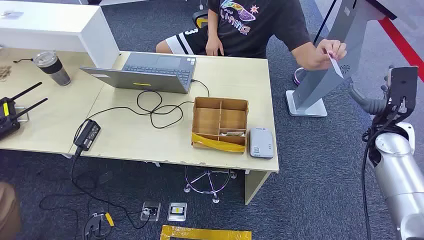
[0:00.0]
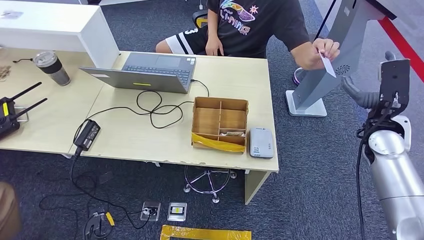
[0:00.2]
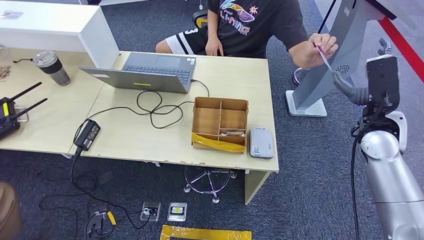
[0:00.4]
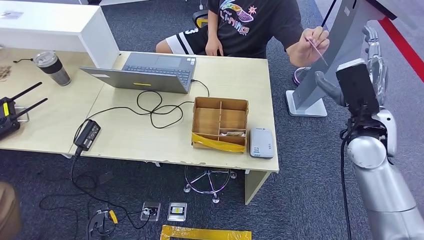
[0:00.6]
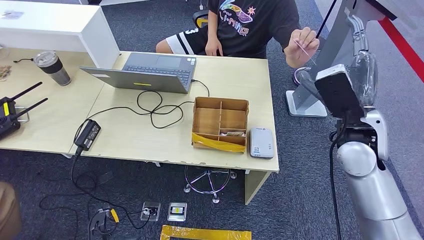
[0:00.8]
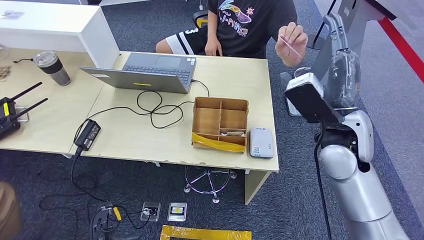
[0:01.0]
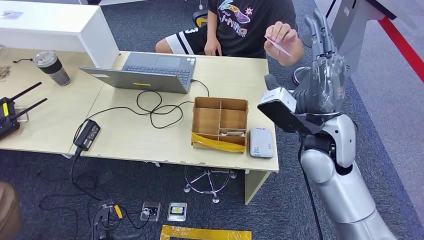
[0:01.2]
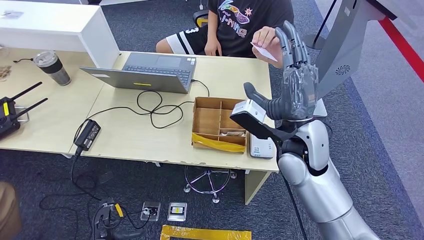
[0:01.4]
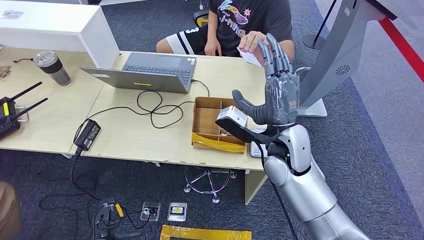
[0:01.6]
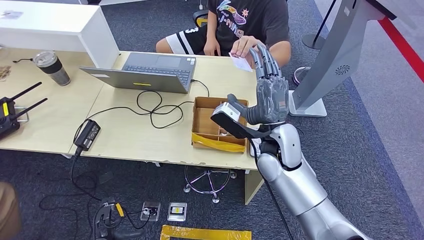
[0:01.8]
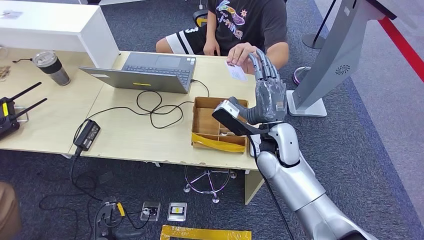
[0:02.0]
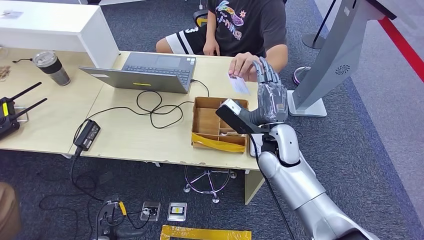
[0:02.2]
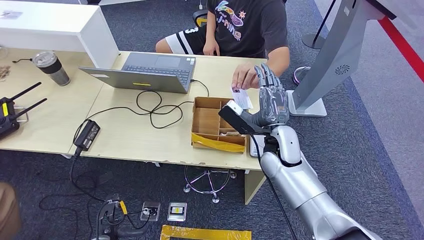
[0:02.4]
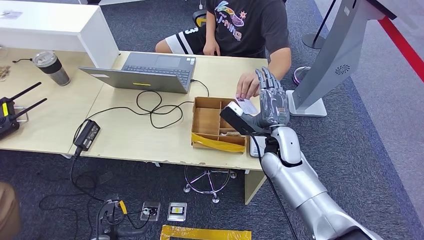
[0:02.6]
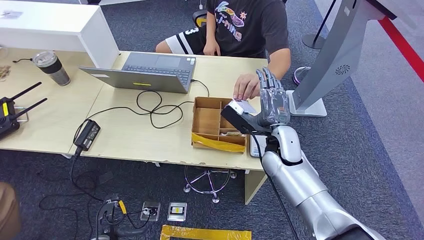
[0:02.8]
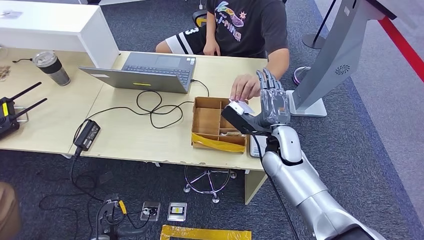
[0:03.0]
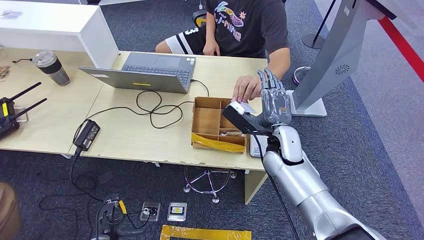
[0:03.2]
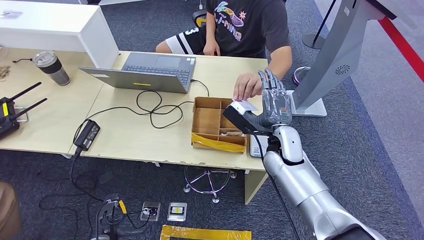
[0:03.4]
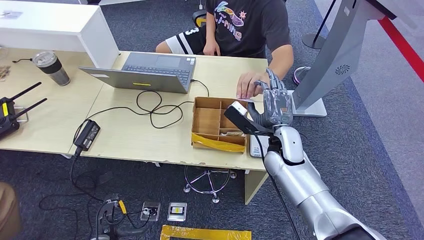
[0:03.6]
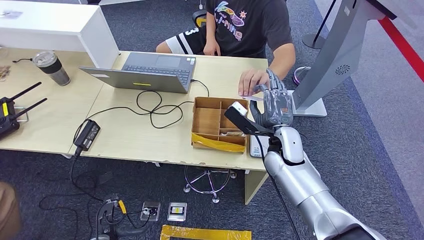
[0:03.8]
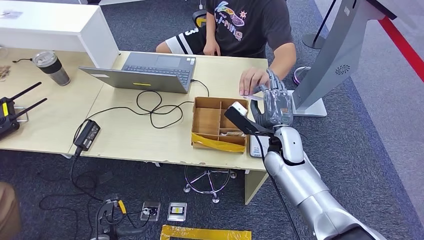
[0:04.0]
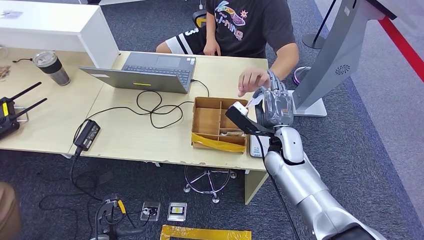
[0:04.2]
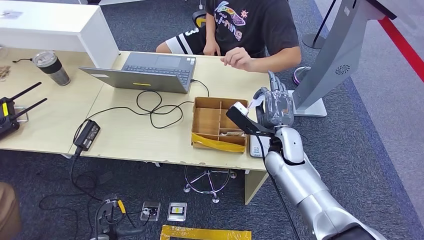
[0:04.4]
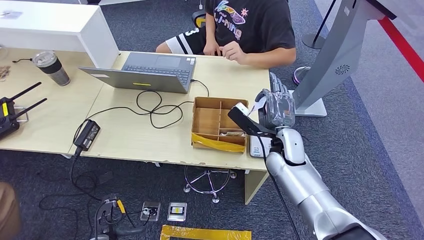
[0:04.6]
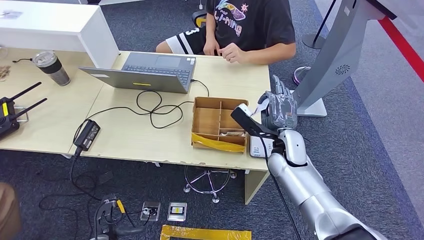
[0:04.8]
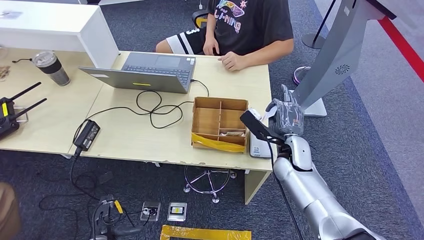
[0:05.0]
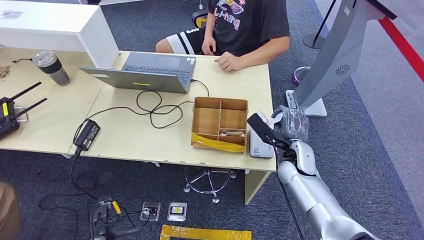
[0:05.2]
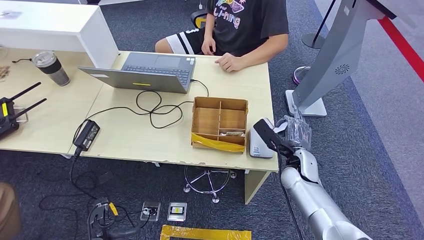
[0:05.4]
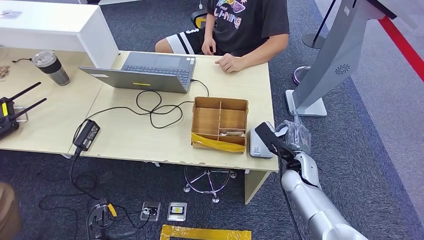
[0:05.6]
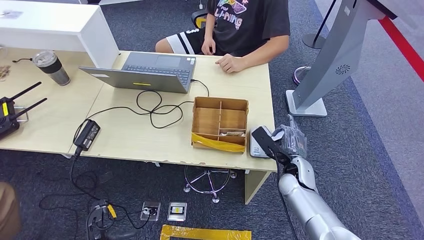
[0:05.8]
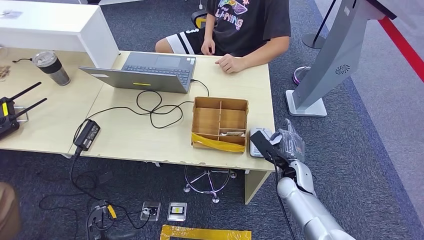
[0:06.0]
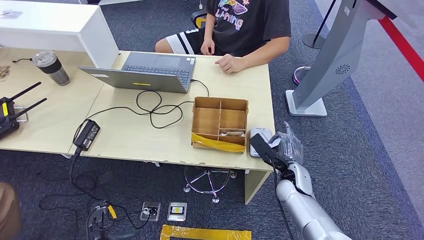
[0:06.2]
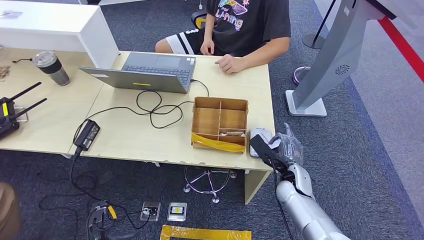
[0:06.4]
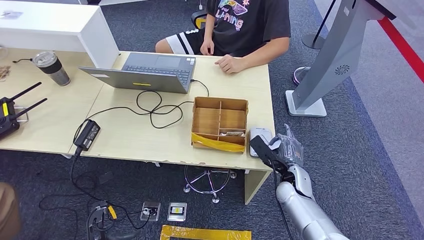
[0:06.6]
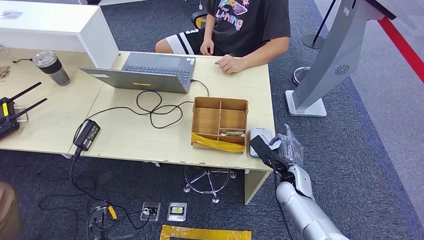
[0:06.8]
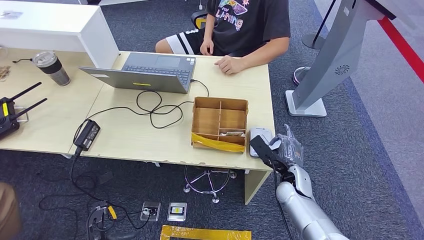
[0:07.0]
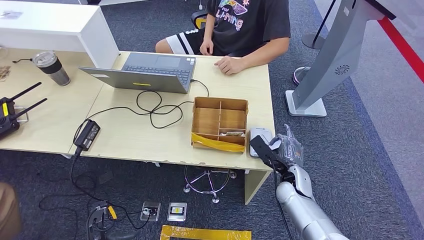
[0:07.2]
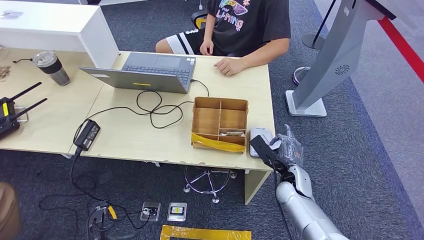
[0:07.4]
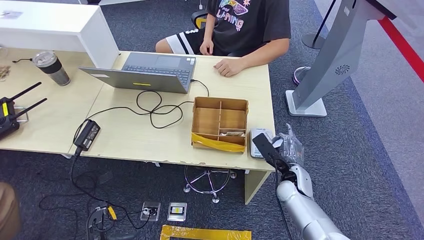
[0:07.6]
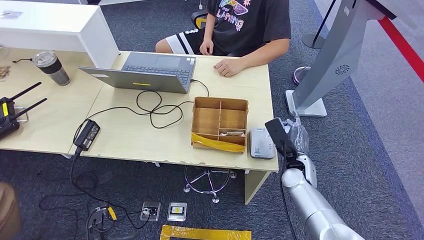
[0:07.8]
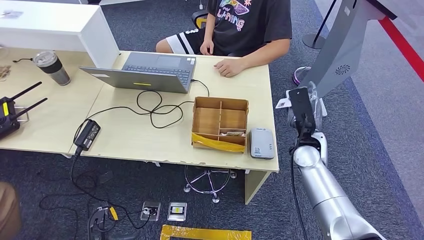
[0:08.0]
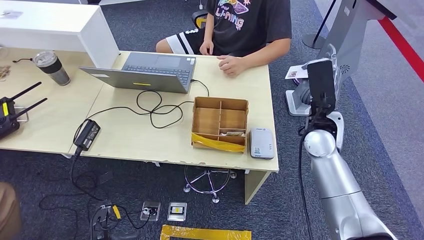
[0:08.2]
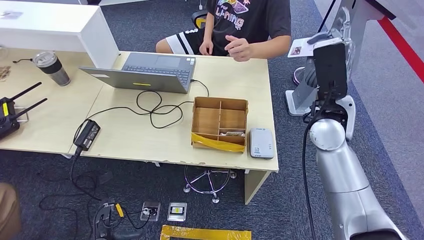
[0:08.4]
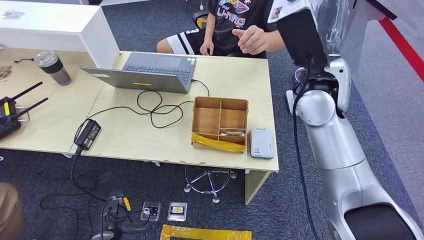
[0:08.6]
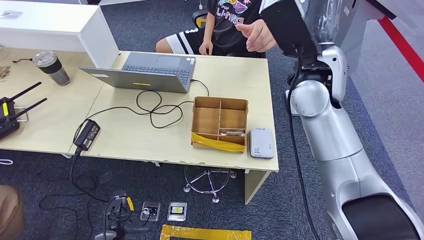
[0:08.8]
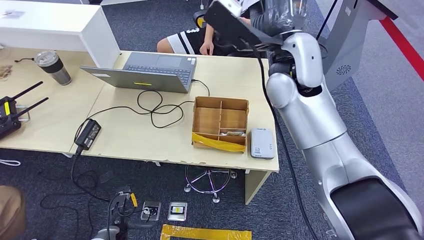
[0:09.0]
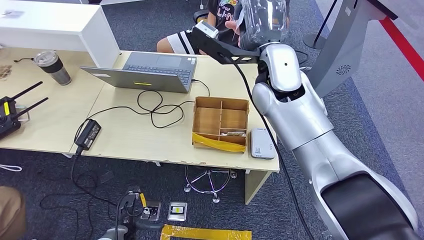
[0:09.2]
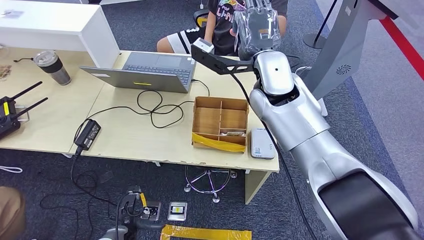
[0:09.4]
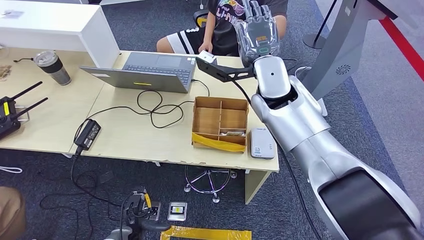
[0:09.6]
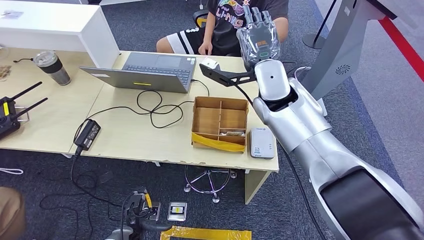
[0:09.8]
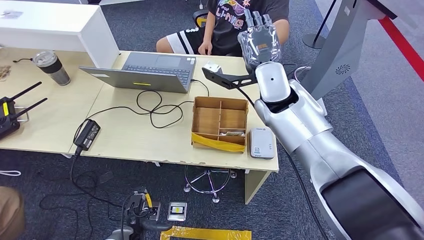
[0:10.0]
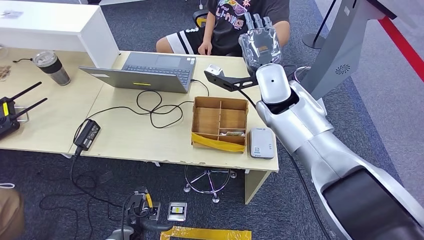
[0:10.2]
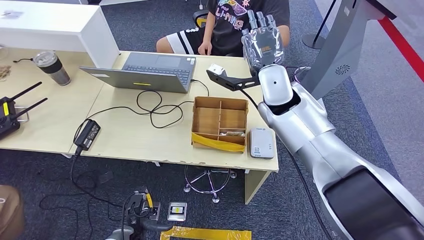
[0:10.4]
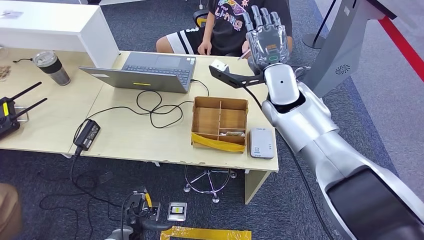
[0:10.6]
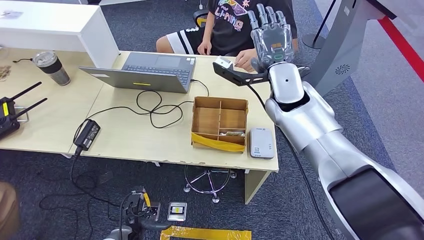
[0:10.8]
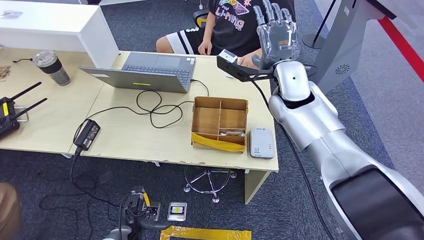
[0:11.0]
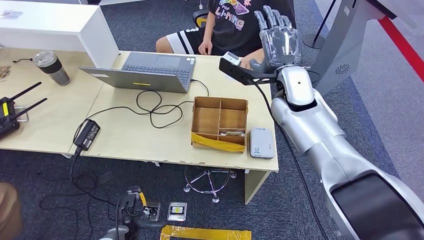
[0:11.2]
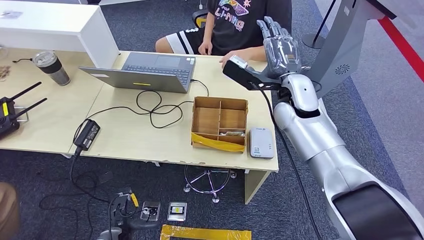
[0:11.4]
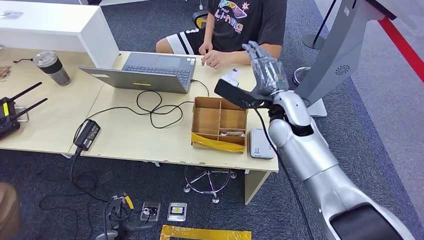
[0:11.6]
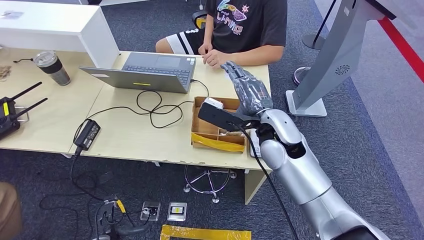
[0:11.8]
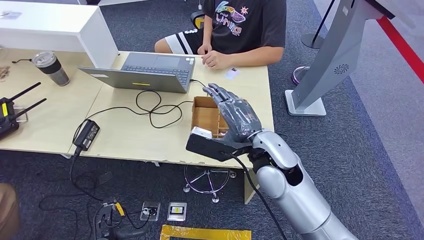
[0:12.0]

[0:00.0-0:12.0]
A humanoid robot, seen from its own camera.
Step, 0:00.0 to 0:05.4: Take the ID card from the person's hand.
Step, 0:06.0 to 0:07.6: Place the ID card on the card reader.
0:01.6 to 0:03.0: The right hand travels downward by about 5 cm.
0:03.0 to 0:04.4: Both hands stay put.
0:04.4 to 0:06.0: The right hand heads downward, backward and to the right, covering some 15 cm.
0:06.0 to 0:07.6: The hands make only small movements.
0:09.0 to 0:10.4: The right hand moves downward, approximately 10 cm.

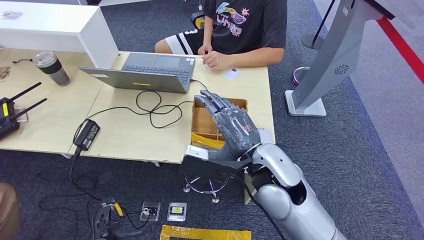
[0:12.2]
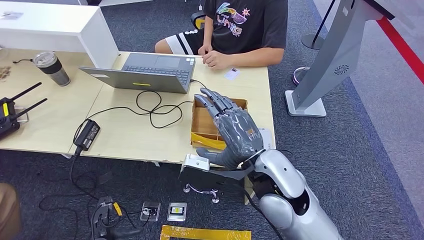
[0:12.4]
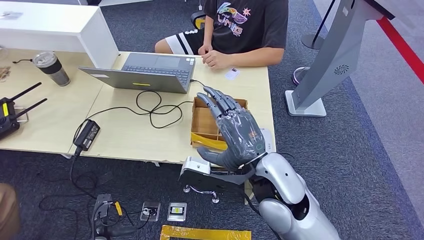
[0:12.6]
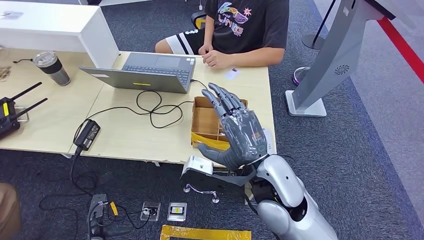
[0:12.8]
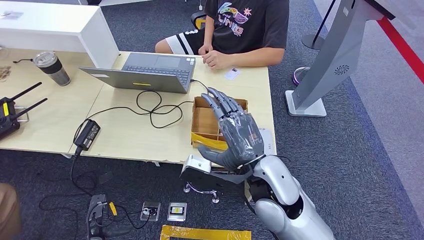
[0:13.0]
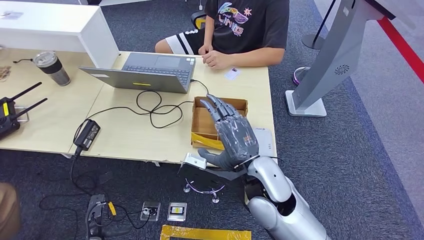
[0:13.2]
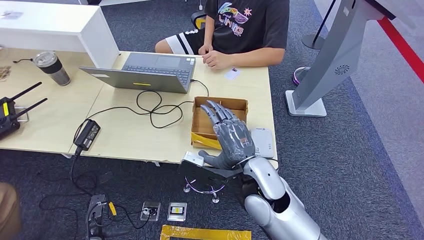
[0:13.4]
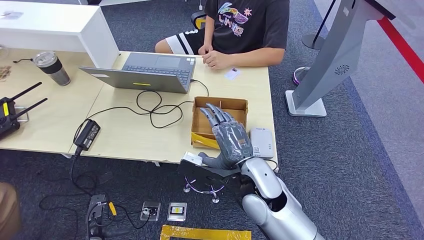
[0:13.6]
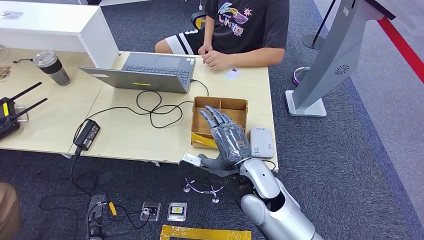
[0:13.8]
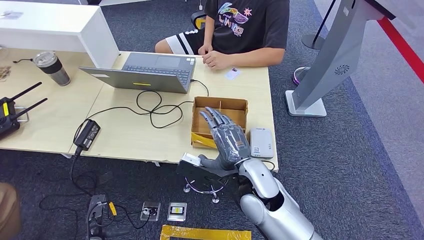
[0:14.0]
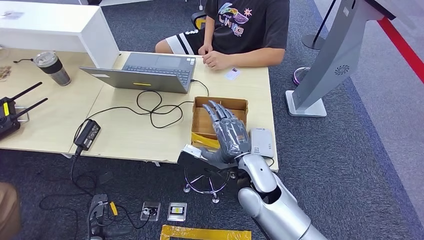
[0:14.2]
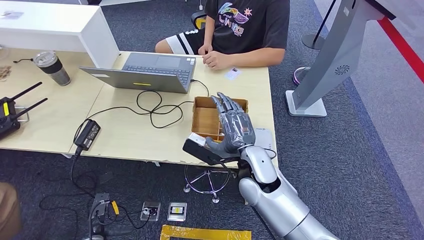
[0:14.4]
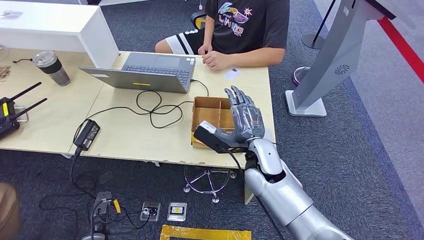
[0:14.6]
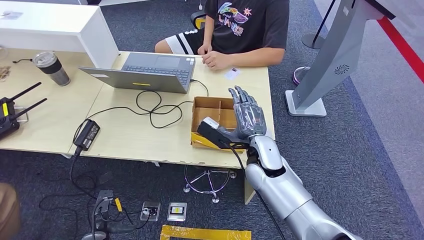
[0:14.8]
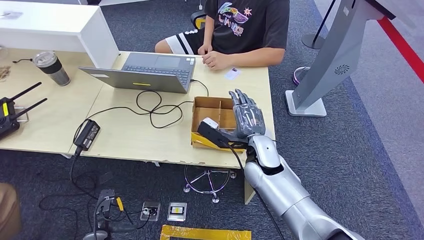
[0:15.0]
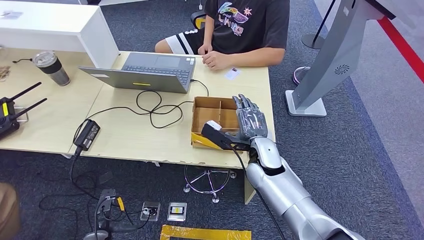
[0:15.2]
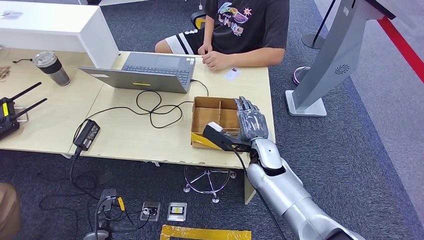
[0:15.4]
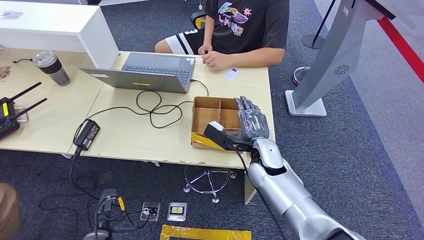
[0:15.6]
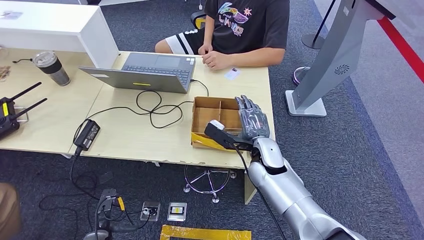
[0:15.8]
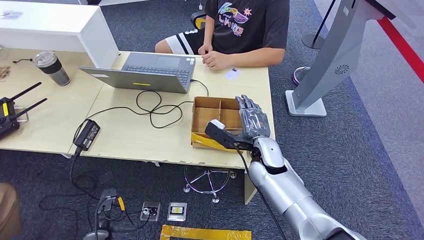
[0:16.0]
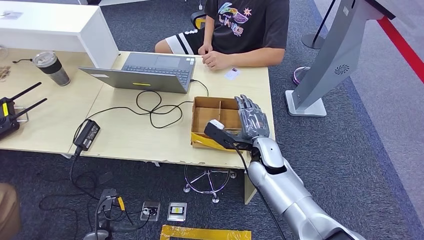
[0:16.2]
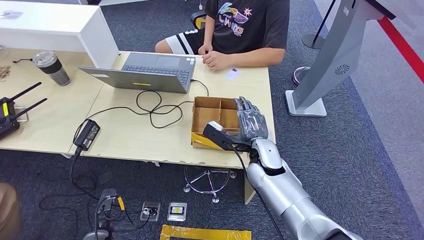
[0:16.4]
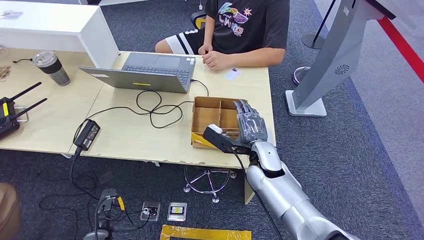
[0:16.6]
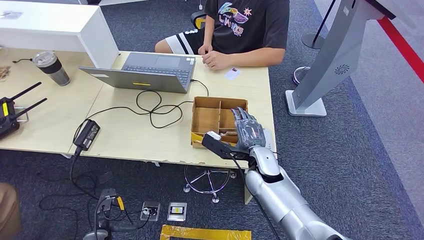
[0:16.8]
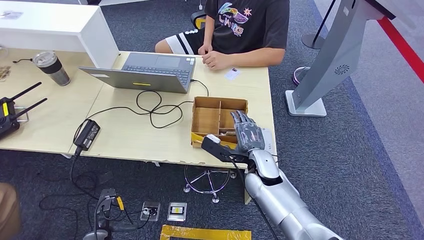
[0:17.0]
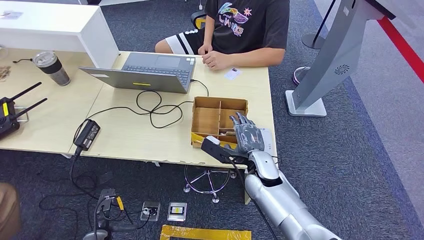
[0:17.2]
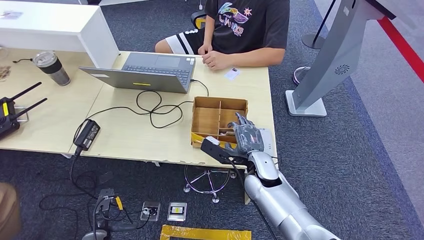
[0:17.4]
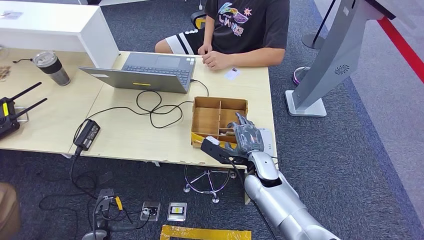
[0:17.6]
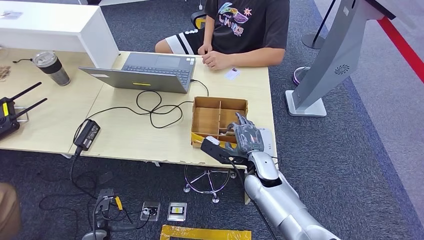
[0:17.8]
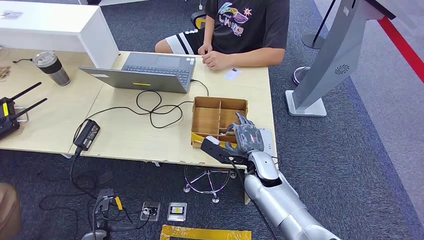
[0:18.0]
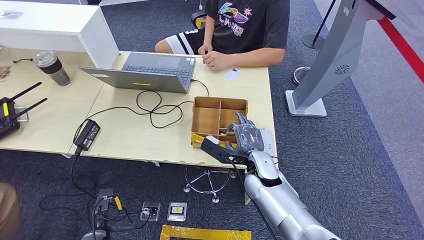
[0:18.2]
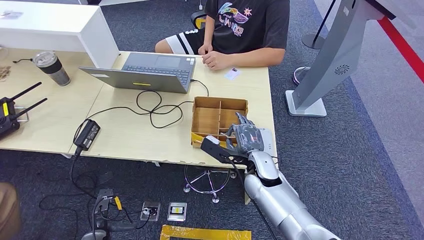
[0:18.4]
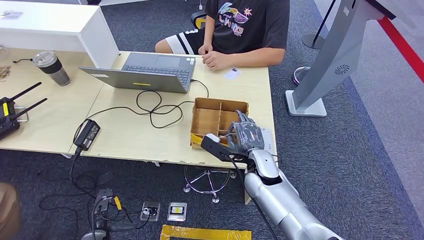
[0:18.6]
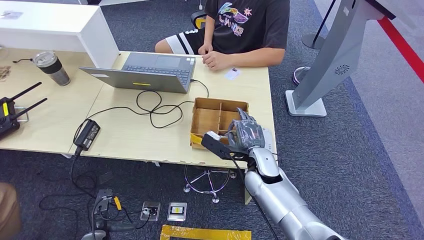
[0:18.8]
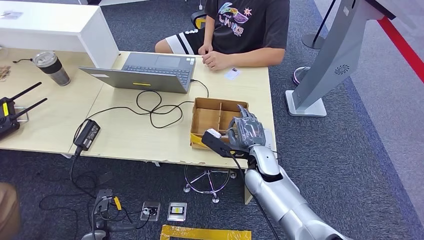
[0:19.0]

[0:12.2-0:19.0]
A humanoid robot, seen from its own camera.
Step, 0:12.2 to 0:14.4: Hand the ID card to the person.
0:12.2 to 0:13.6: The right hand travels downward by about 5 cm.
0:13.6 to 0:15.0: The right hand shifts roughly 5 cm forward.
0:15.0 to 0:19.0: There are only small adjustments of the hands.
